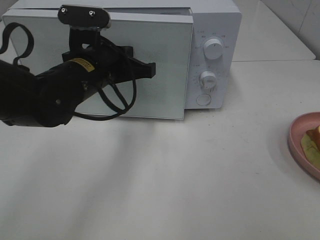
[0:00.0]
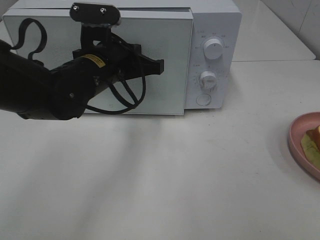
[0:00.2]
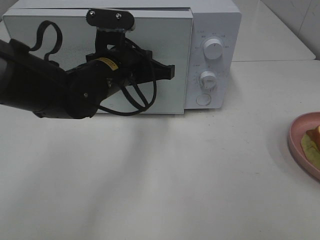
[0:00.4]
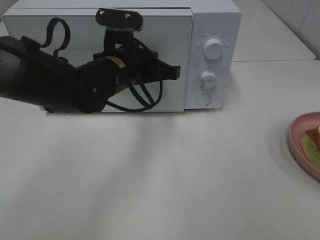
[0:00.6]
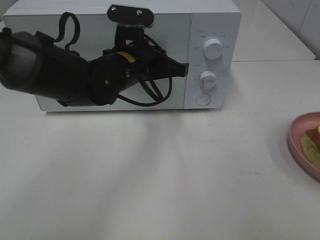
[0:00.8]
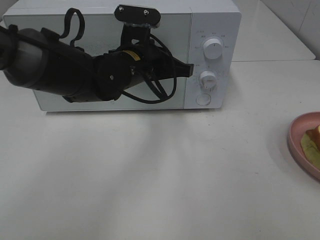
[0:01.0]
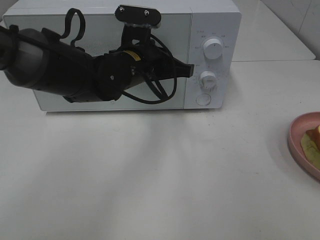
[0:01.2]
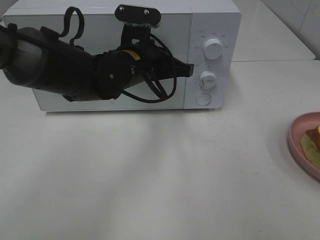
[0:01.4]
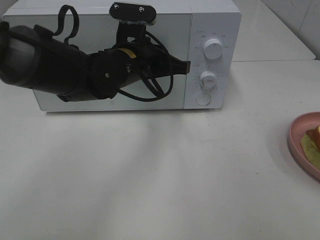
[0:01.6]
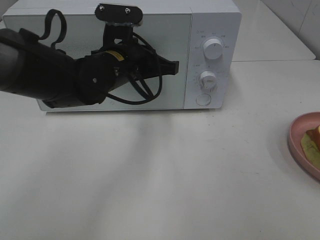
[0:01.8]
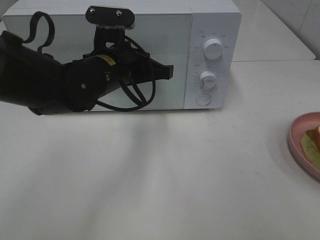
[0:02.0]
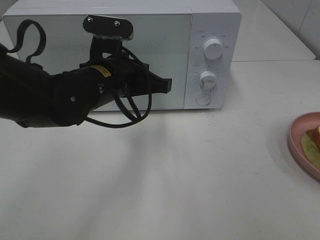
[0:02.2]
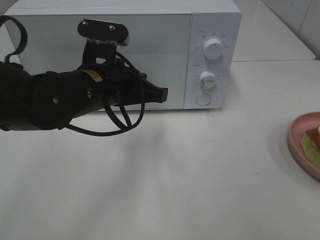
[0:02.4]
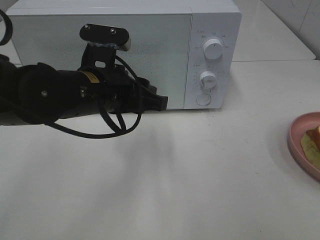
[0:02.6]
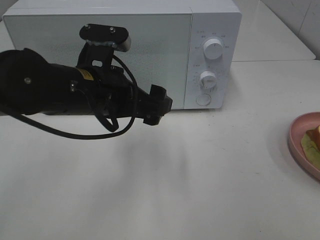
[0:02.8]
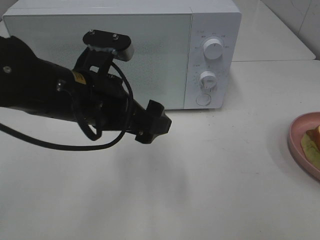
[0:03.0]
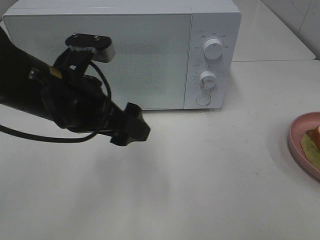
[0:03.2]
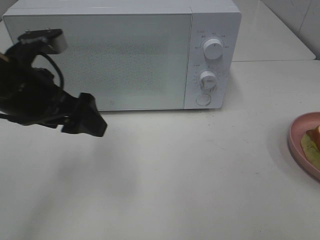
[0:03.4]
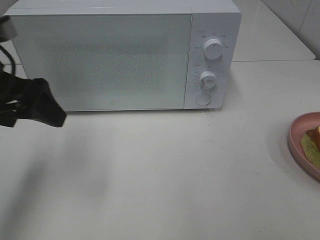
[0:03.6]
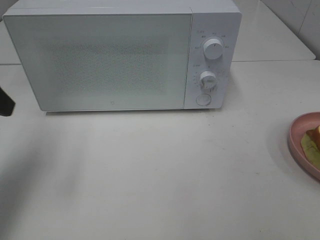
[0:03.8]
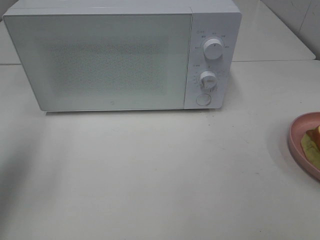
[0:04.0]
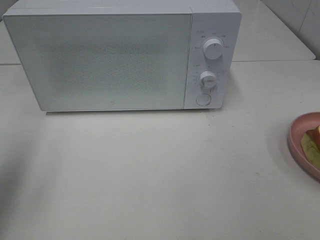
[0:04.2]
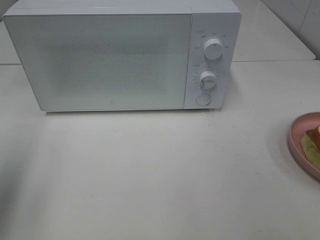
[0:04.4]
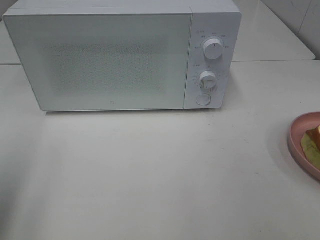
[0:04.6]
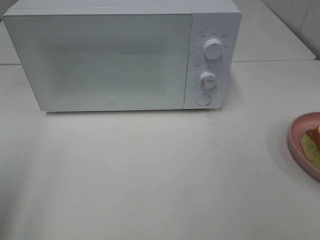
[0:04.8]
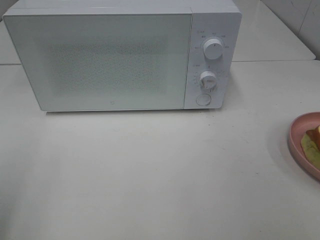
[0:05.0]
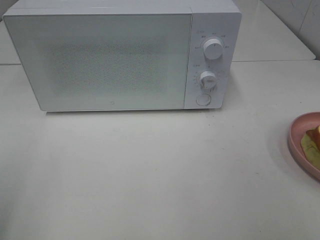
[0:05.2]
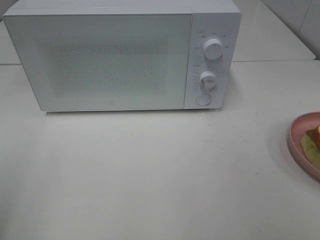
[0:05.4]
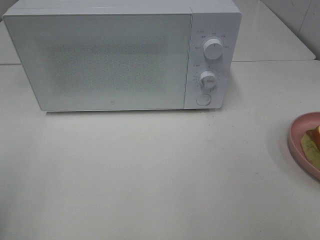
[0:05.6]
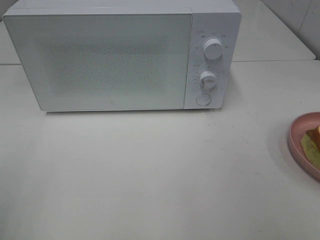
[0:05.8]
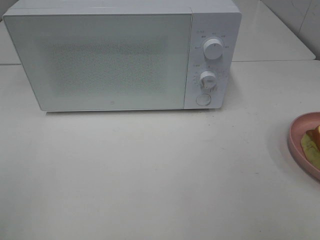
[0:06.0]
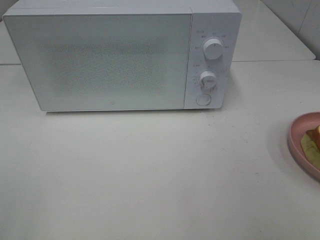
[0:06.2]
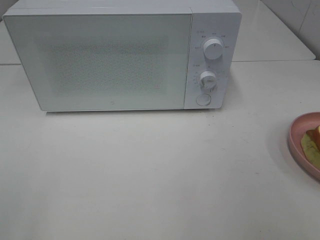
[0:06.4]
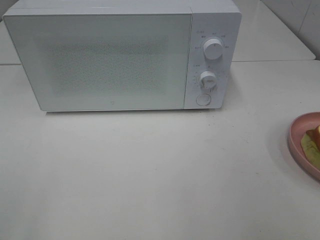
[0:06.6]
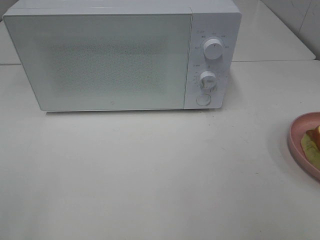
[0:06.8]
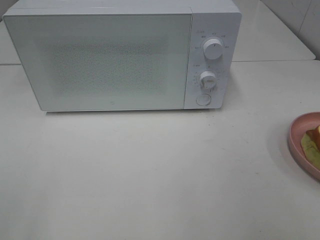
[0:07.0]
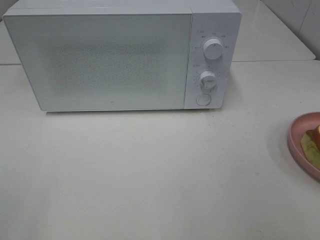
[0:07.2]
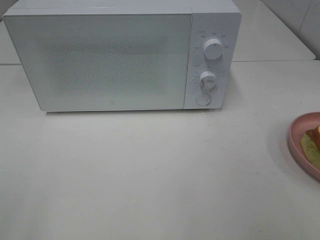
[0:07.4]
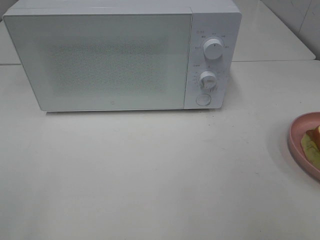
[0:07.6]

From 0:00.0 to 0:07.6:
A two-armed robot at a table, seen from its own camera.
Task of the whole recording: Heat Sandwich.
Step, from 0:00.0 to 0:02.6: Left hand: close the microwave door.
From 0:00.0 to 0:01.6: The left gripper is displaced to the right by roughly 5 cm.
From 0:01.6 to 0:03.0: The left gripper shifts some 10 cm backward and to the left, and opens.
From 0:03.0 to 0:04.6: The left gripper is displaced to the left and backward by approximately 25 cm.
From 0:04.6 to 0:06.0: The left gripper moves backward, about 10 cm.

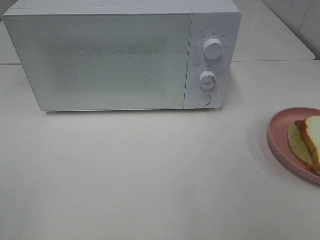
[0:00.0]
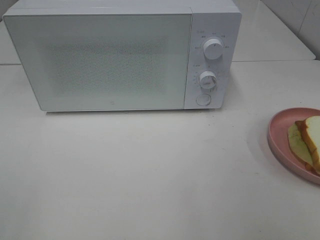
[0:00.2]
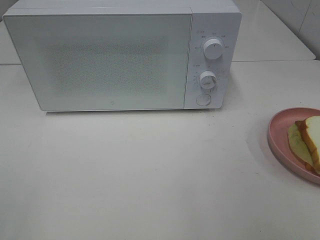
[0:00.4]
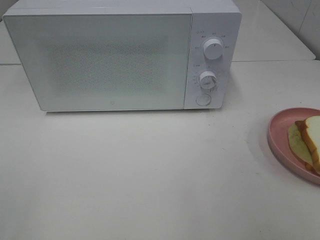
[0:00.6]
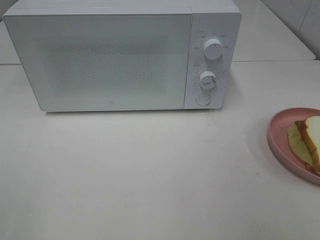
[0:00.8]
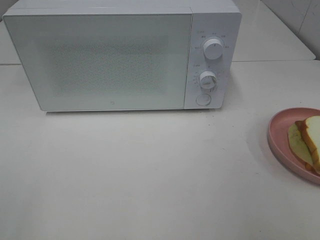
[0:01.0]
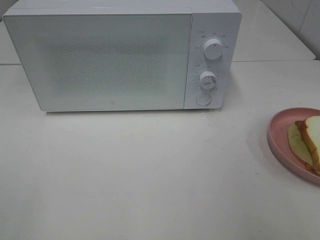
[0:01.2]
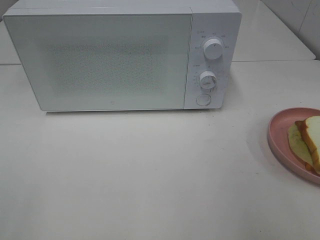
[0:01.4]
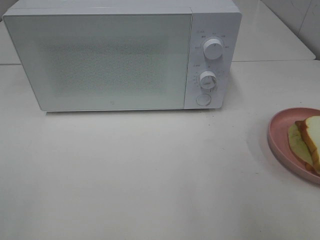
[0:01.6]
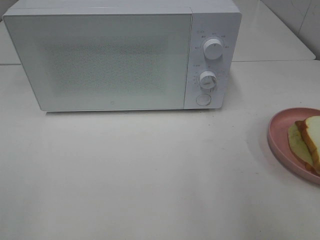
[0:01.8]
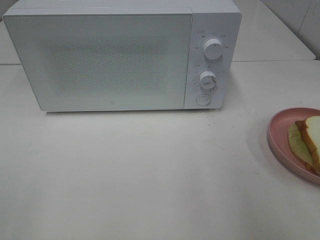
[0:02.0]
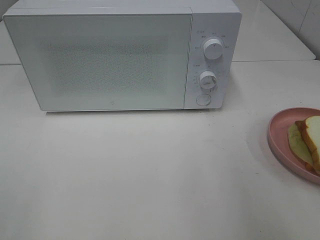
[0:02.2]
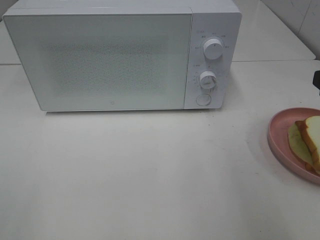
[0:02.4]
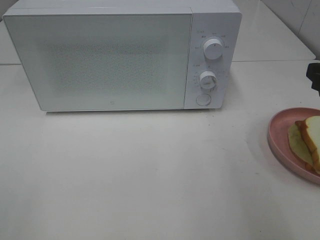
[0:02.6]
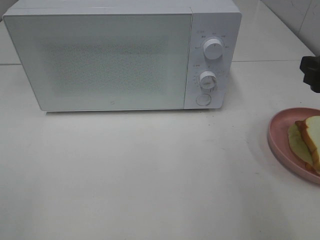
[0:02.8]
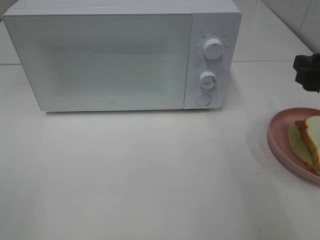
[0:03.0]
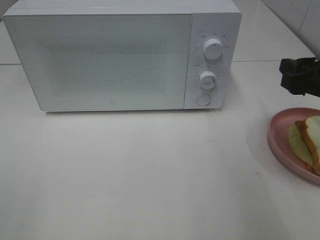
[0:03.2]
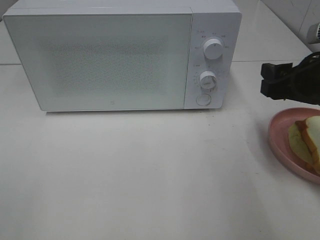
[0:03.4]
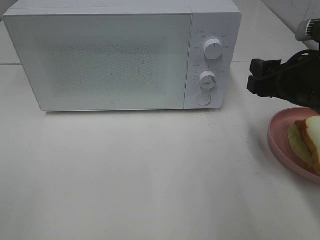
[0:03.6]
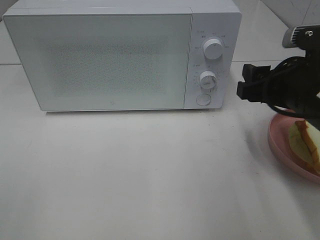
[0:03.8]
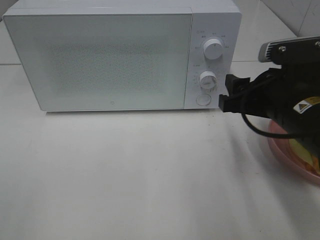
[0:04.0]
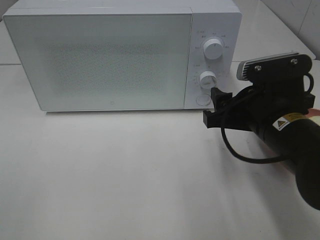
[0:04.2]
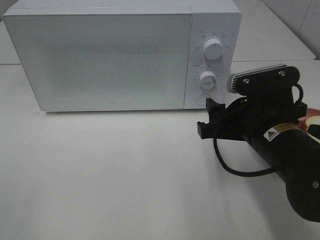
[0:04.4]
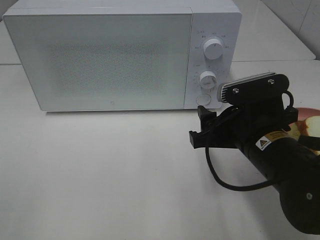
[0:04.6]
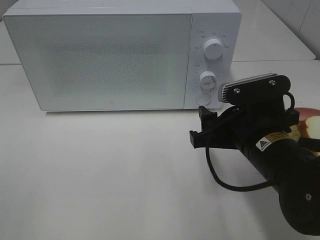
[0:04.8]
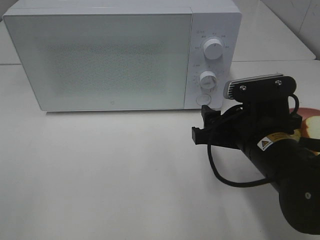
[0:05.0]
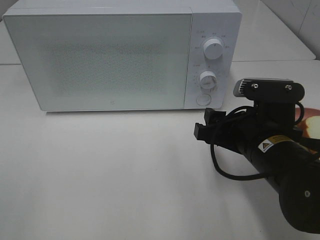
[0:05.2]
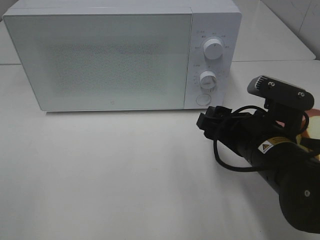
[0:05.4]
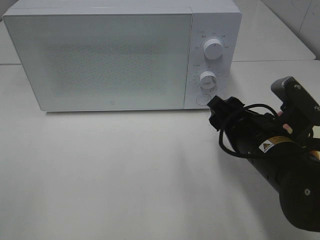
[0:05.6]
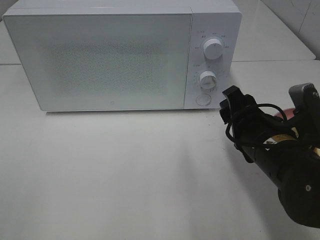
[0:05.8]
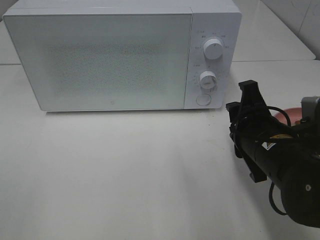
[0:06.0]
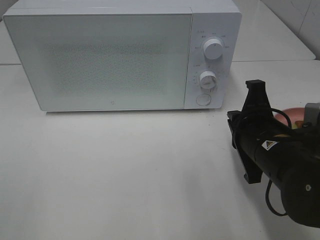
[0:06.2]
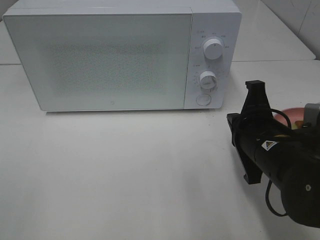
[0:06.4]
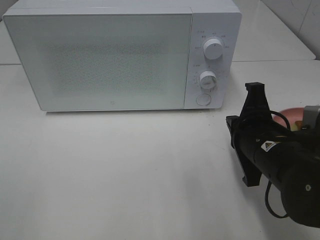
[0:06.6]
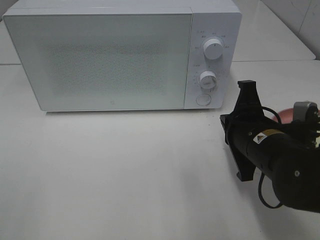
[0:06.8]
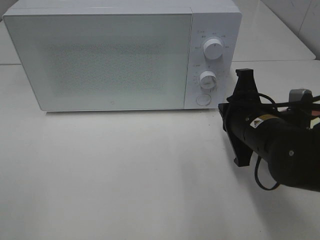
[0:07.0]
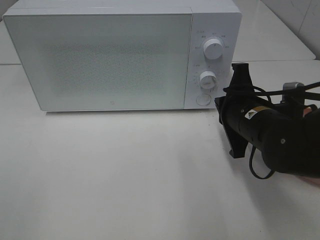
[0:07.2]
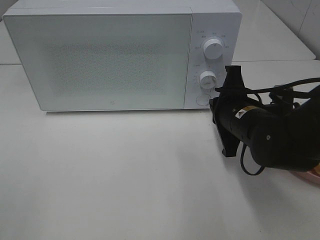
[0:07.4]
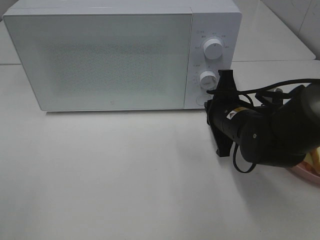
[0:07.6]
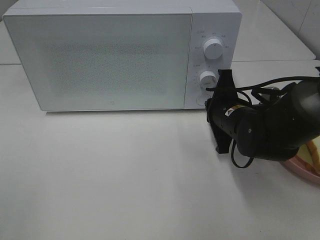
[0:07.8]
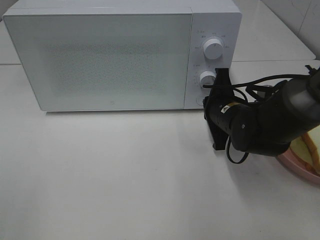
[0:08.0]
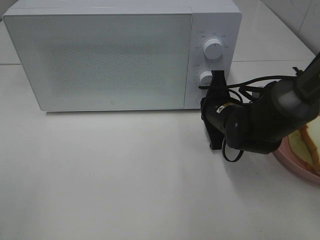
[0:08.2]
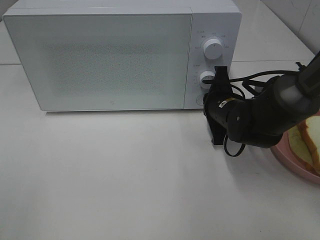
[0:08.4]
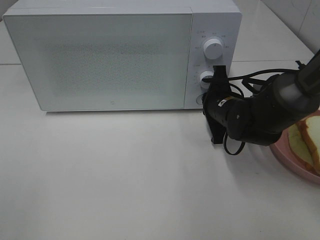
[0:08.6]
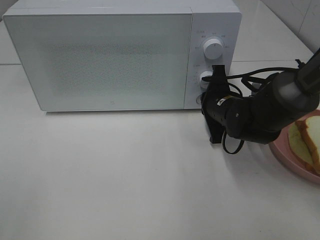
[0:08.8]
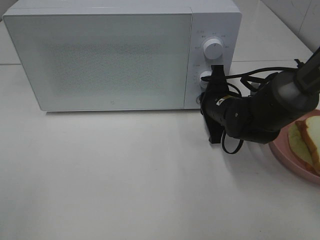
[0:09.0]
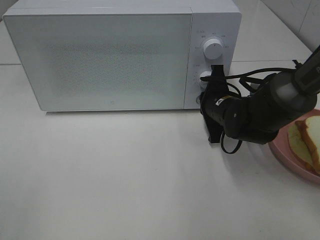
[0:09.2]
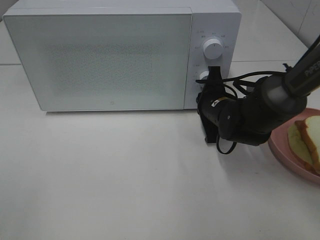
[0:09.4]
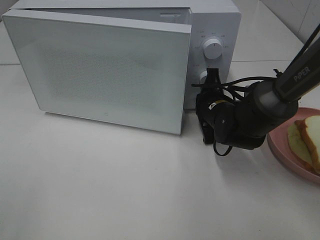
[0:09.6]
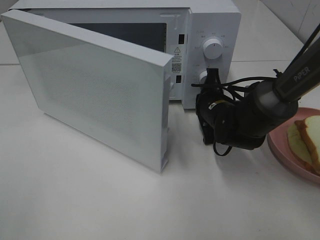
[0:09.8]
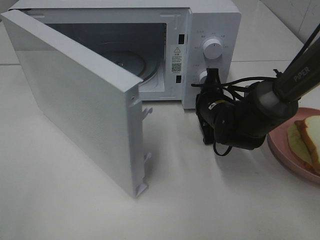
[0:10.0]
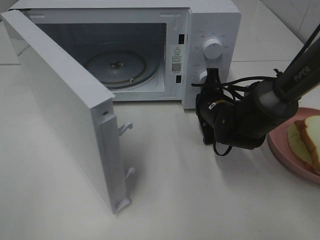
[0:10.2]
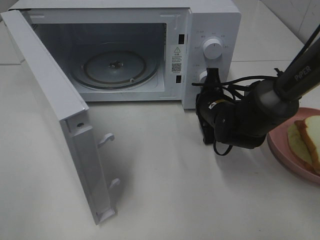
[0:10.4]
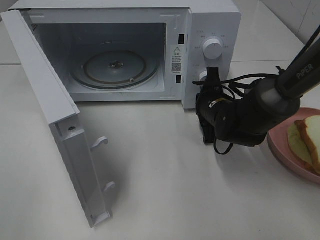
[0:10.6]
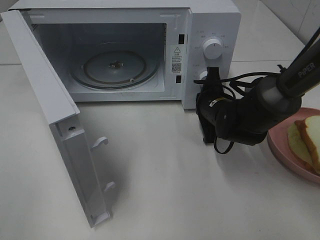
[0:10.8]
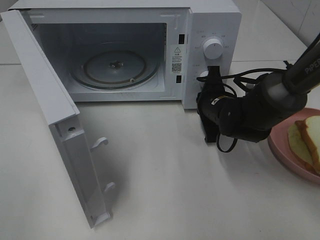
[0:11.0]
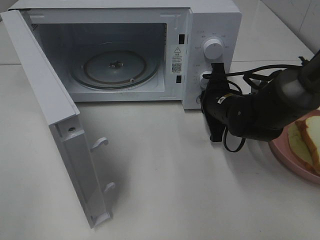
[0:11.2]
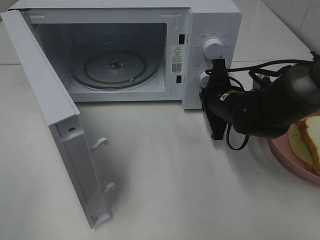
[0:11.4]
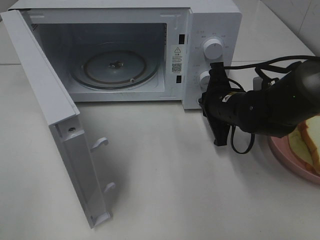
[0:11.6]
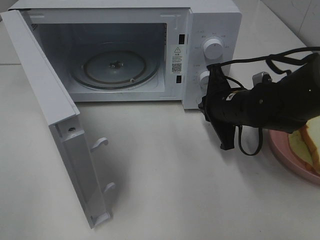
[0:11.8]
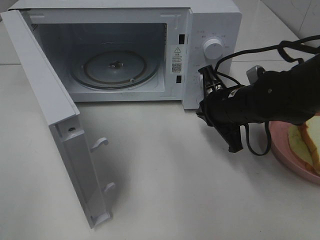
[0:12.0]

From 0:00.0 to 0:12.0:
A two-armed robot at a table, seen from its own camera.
Task of the whole recording: Heat Sandwich.
Step, from 0:00.0 to 0:11.4: Right hand: press the switch.
From 0:01.6 to 0:03.0: The right gripper goes approximately 15 cm forward and downward.
From 0:03.0 to 0:04.4: The right gripper shifts some 15 cm to the left and downward.
From 0:06.0 to 0:07.6: The right gripper goes about 10 cm forward, and closes.
From 0:07.6 to 0:09.0: The right gripper shifts about 5 cm forward.
From 0:10.4 to 0:12.0: The right gripper moves upward and backward, some 10 cm.

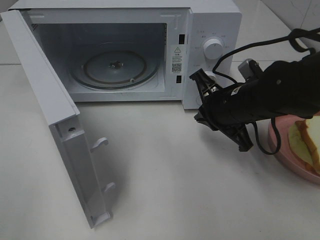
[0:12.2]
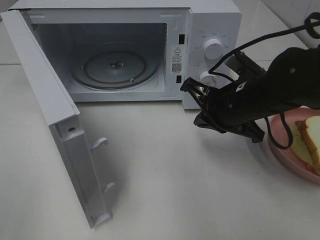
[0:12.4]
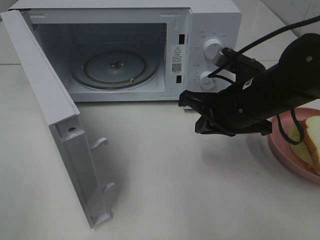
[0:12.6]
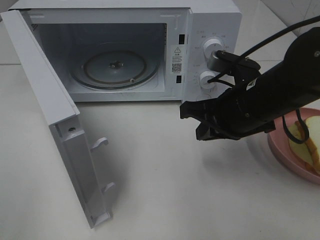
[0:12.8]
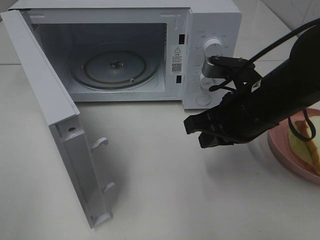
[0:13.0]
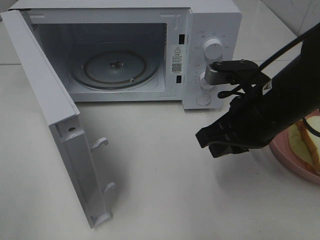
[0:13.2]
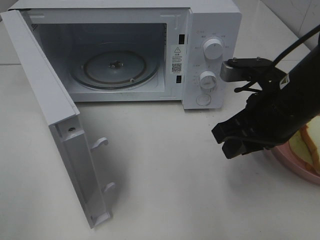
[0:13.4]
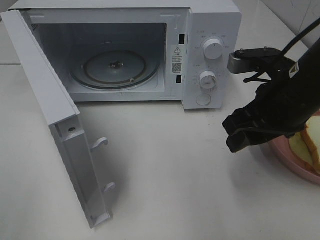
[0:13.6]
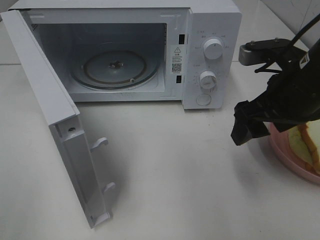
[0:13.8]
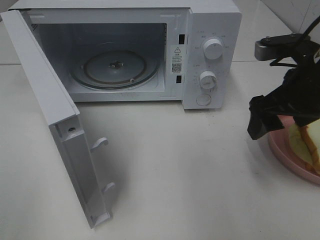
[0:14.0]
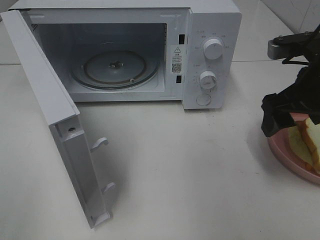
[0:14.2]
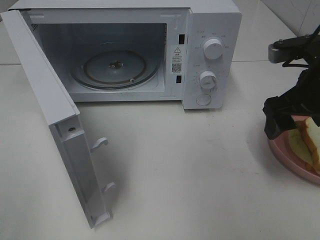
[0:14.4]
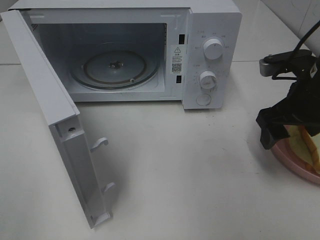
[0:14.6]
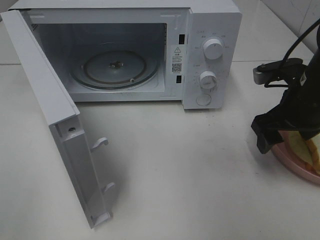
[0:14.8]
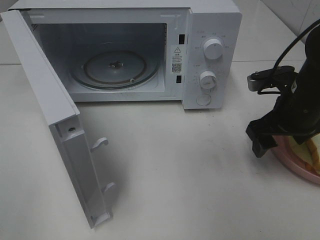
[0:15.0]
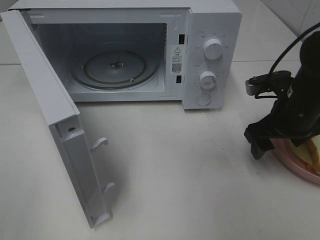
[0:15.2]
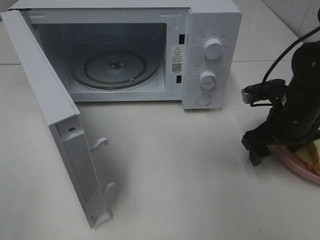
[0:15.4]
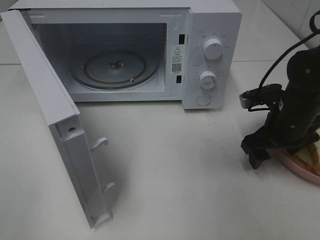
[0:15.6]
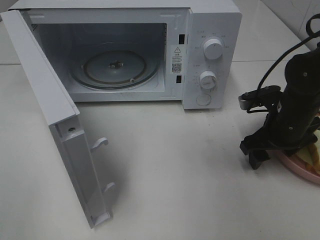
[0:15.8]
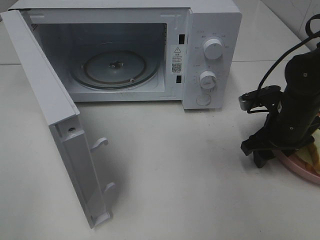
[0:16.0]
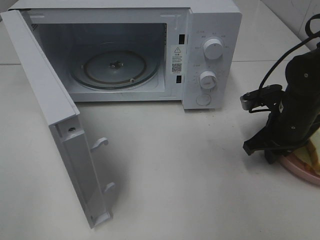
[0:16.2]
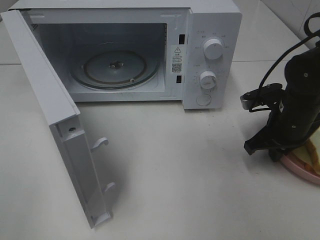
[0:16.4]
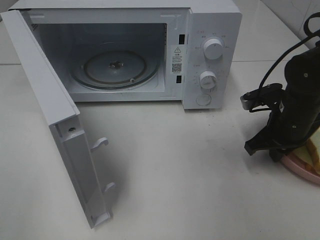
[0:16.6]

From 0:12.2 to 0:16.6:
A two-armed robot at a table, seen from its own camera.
Task of the whole recording: Heat Sandwich.
From 0:12.2 to 0:13.6: The right gripper shifts approximately 10 cm upward and backward, and opens.
From 0:13.6 to 0:15.2: The right gripper heads downward, forward and to the right, covering roughly 10 cm.
From 0:15.2 to 0:16.6: The right gripper closes up.
